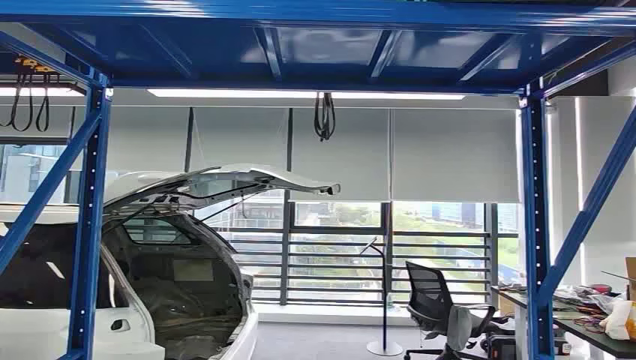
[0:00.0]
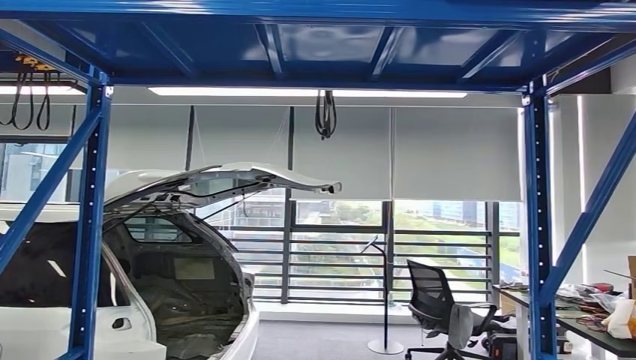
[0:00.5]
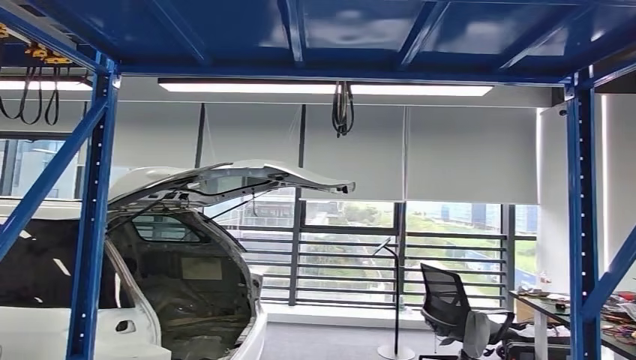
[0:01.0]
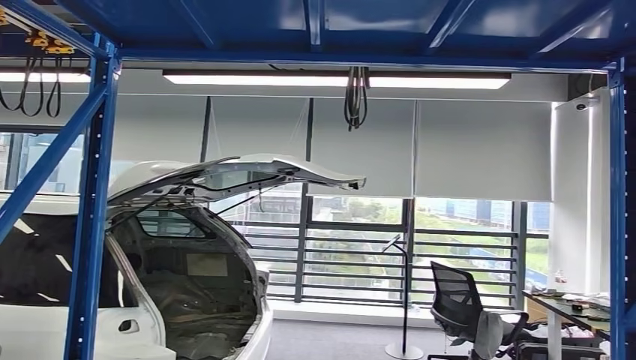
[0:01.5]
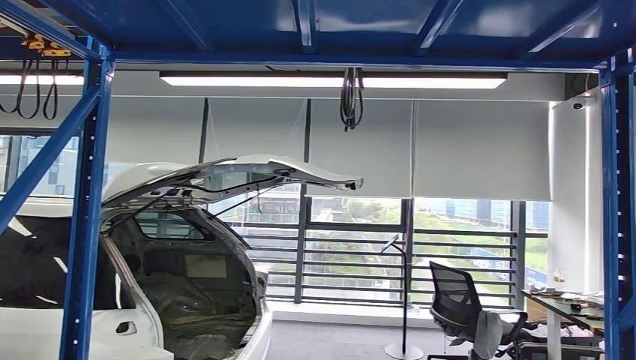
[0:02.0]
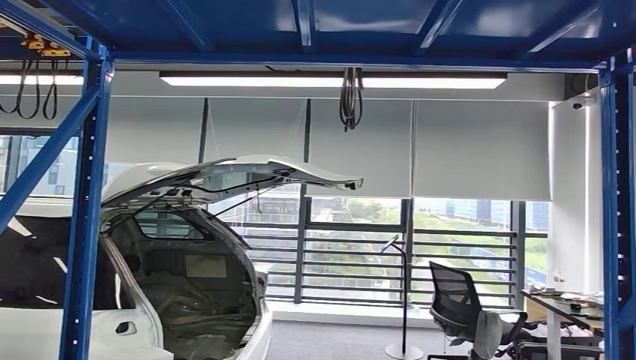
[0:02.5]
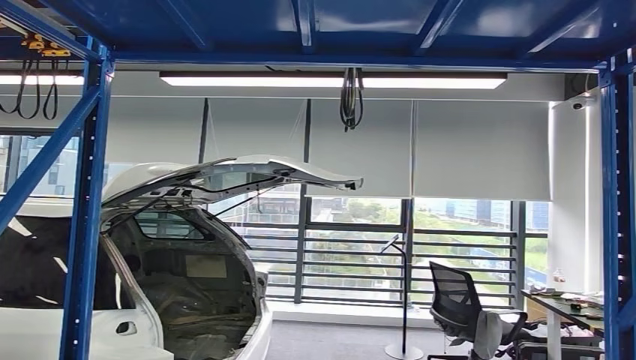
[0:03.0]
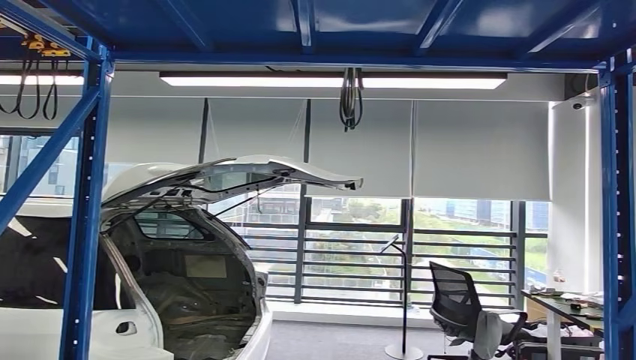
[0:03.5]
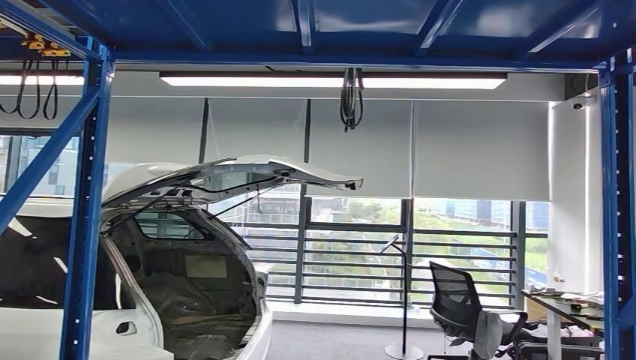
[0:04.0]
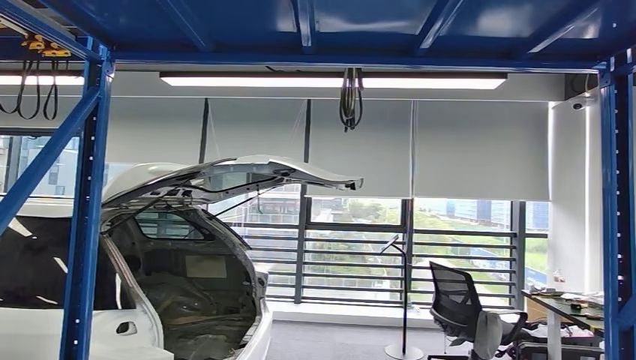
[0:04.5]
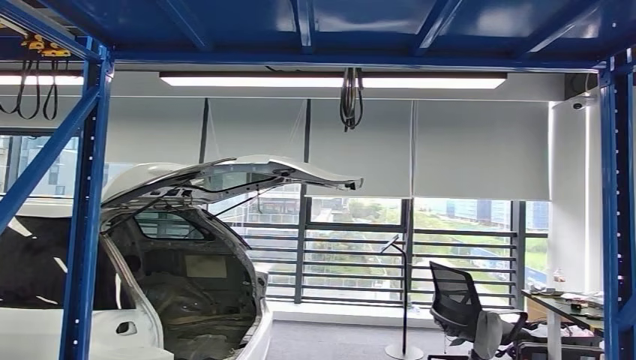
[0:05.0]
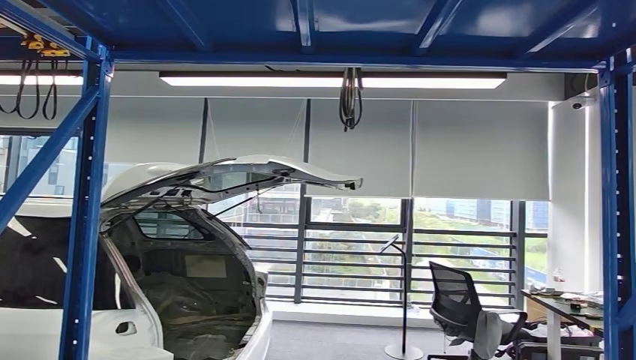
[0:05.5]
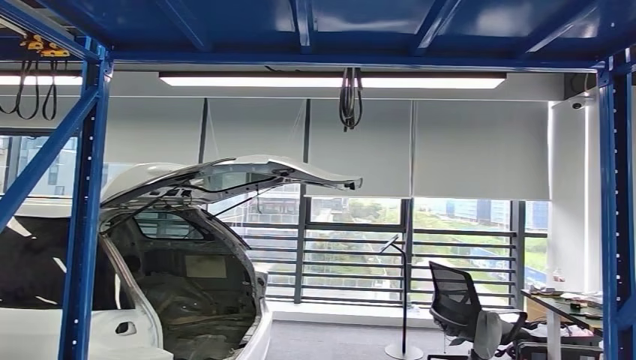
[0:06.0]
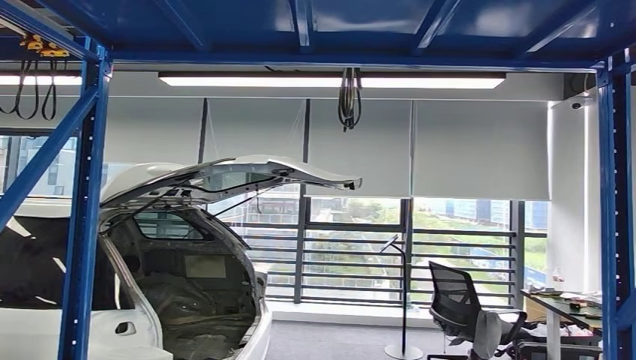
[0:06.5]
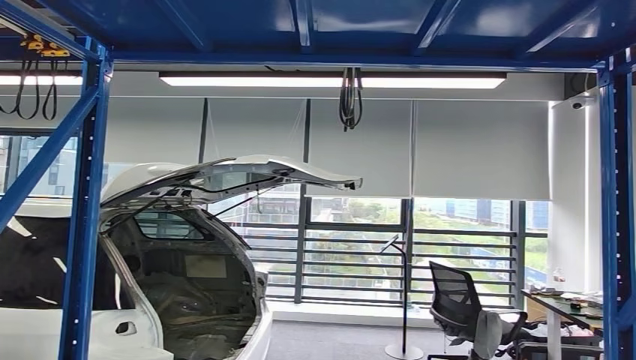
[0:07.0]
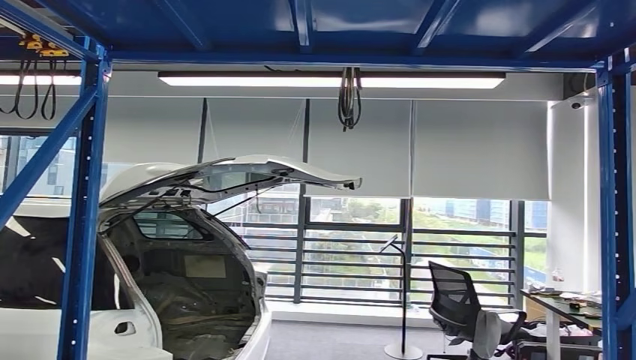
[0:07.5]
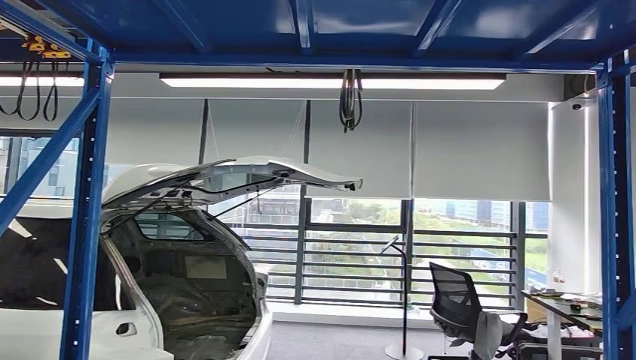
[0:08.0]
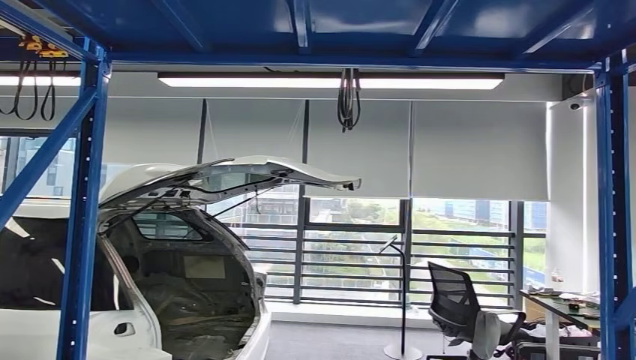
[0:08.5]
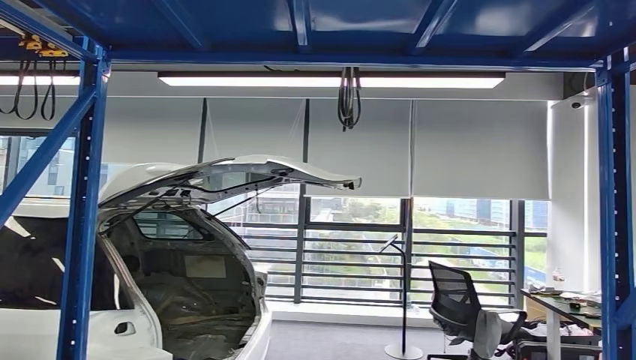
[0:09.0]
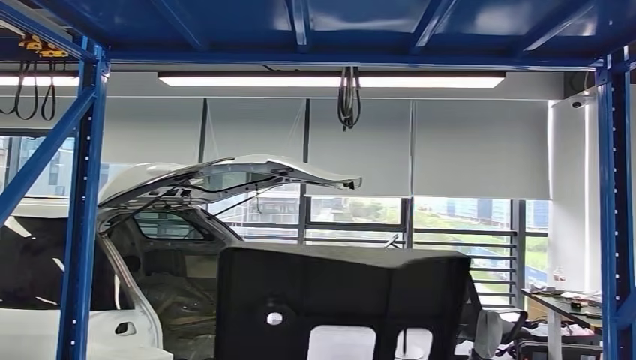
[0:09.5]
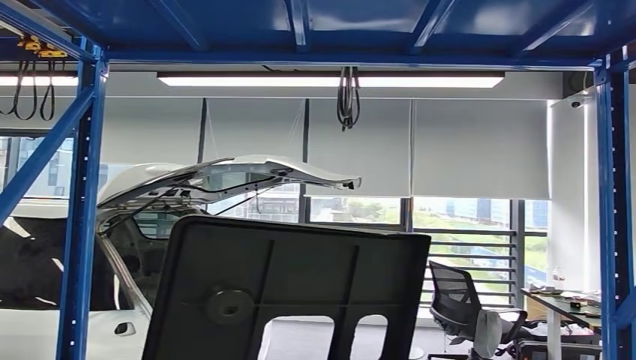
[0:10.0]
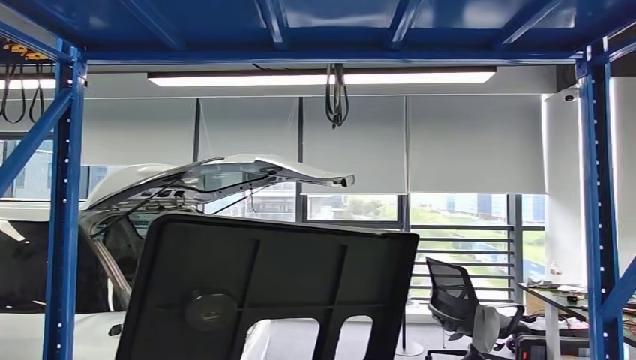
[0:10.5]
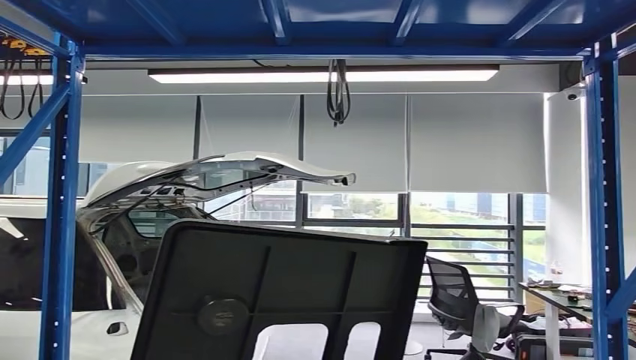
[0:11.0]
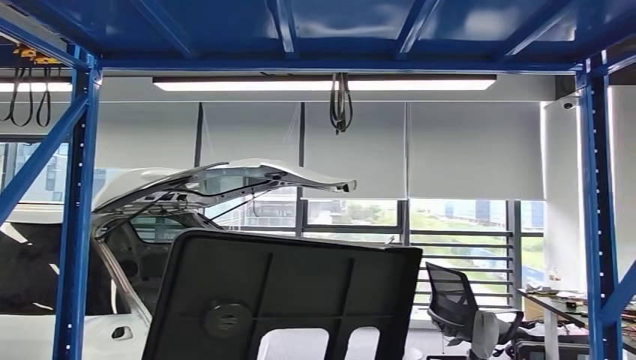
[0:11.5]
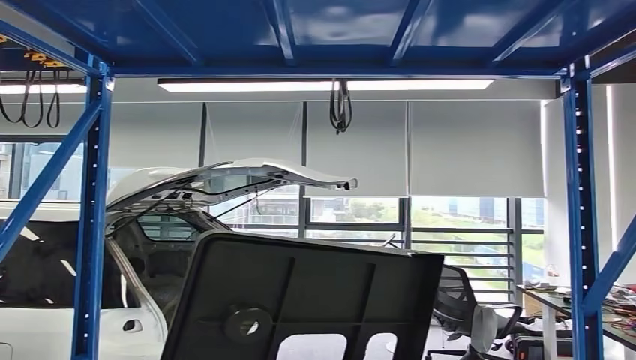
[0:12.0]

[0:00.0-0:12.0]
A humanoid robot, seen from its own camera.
Step, 0:00.0 to 0:08.0: Take small components from the rack.
0:04.0 to 0:06.0: The right hand travels forward by some 5 cm.
0:06.0 to 0:08.0: There are only small adjustments of the hands.

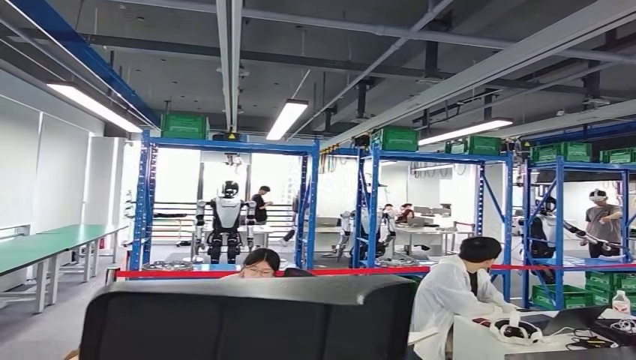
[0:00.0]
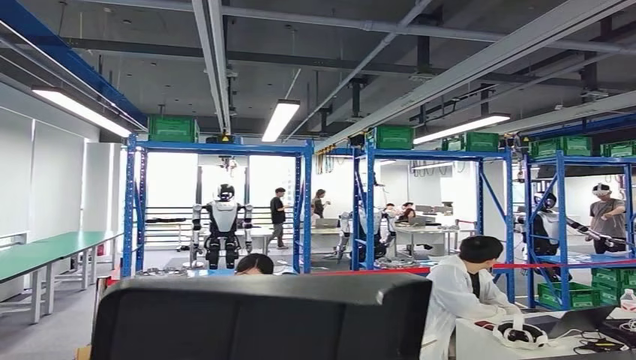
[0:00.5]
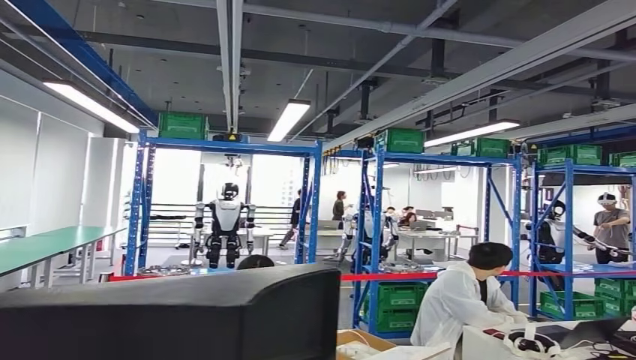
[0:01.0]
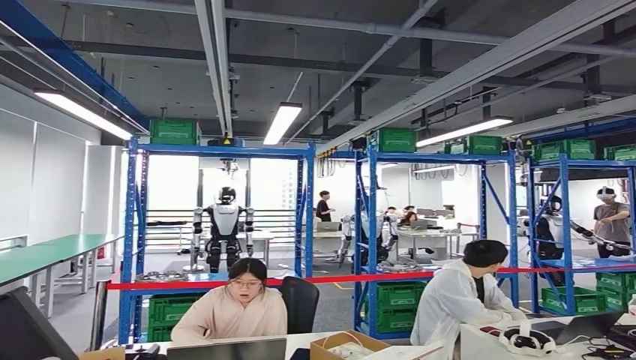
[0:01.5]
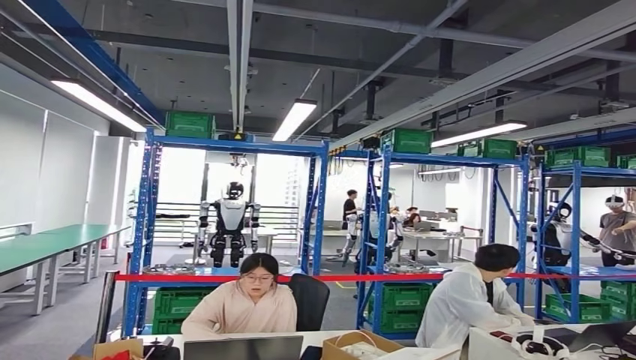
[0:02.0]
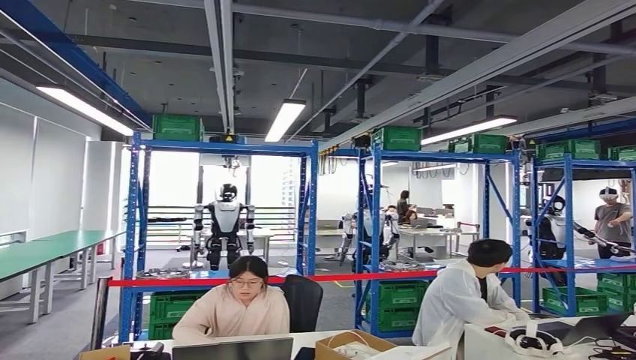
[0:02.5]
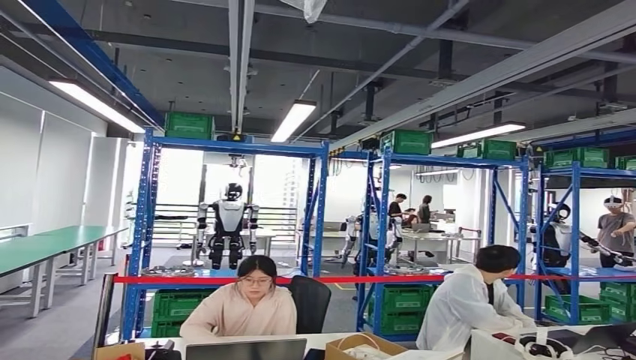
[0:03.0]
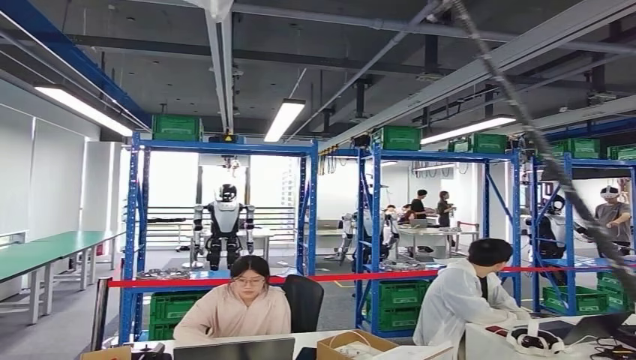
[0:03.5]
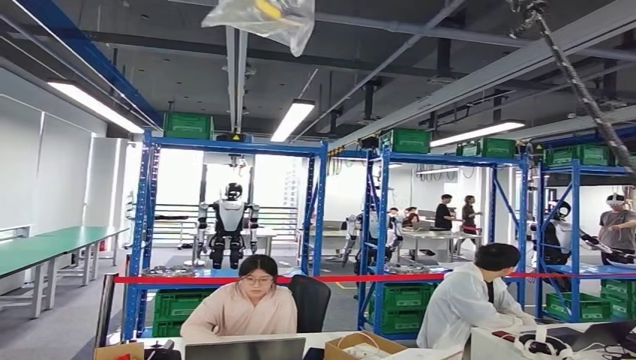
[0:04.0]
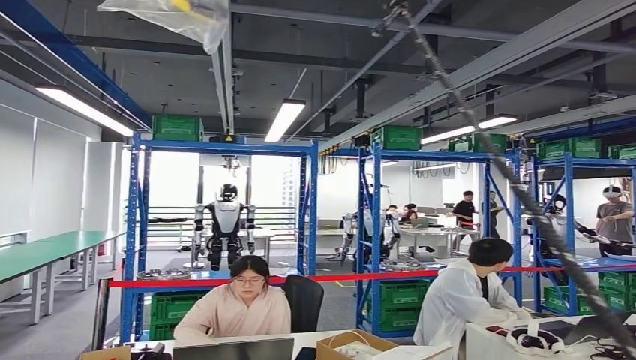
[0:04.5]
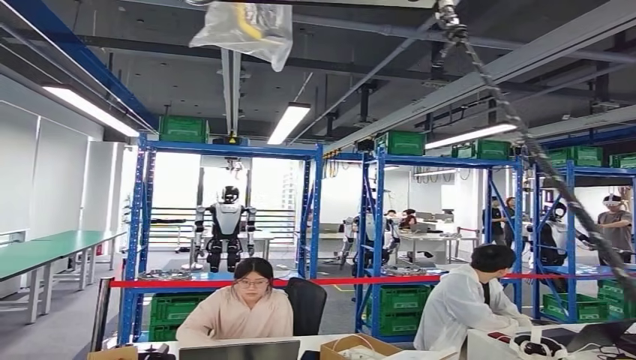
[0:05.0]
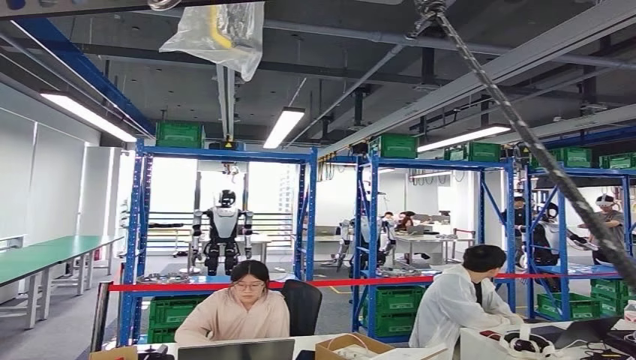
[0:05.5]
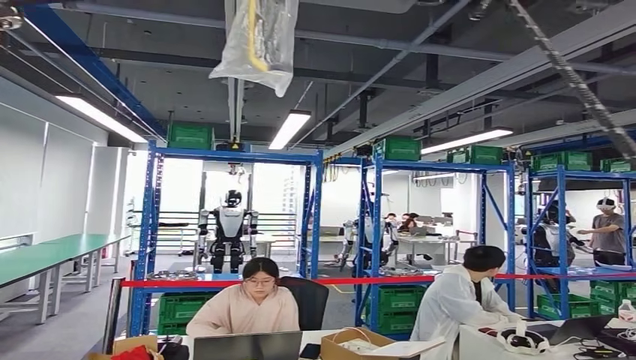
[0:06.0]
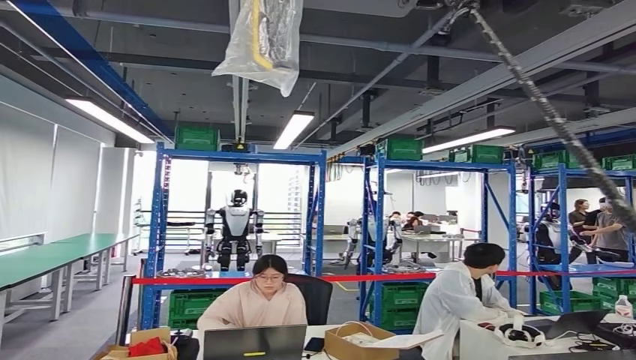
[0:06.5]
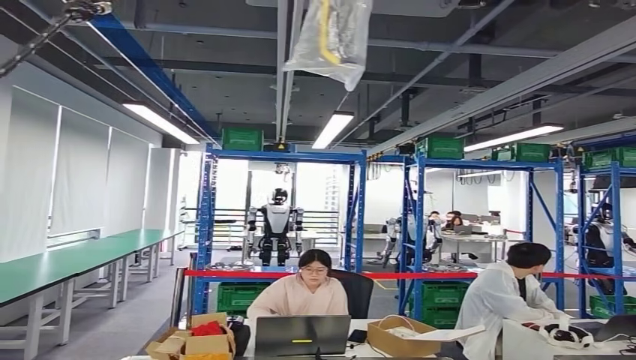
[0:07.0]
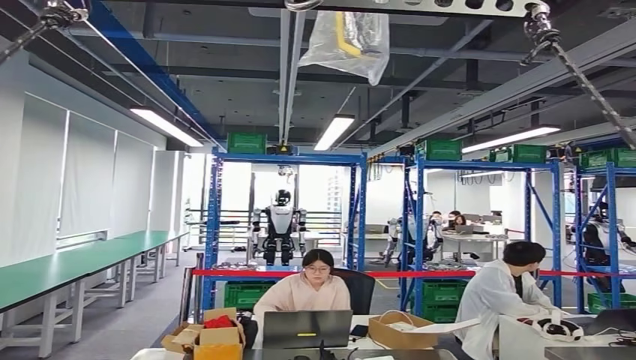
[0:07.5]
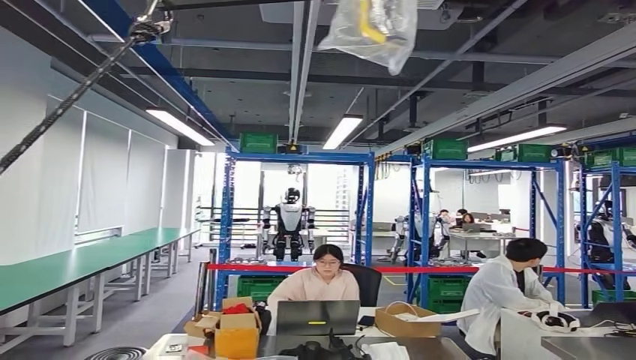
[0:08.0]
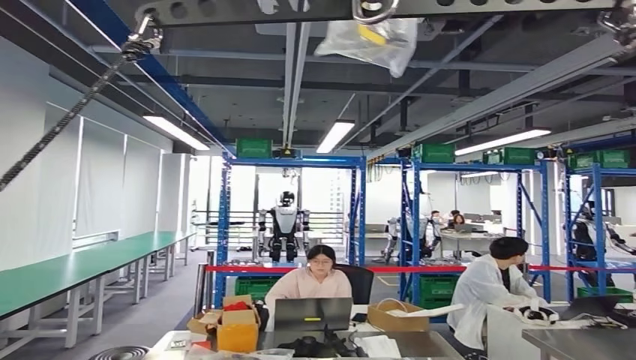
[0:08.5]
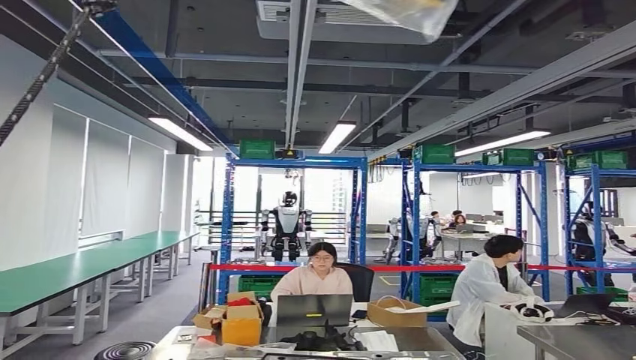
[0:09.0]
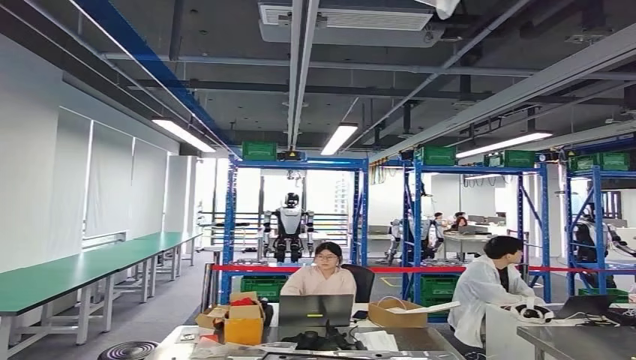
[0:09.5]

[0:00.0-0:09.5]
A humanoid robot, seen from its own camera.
Step, 0:00.5 to 0:04.5: Insert the small parts into the corresponding holes on the workbench.
Step, 0:05.0 to 0:09.5: Move to the initial position of the workbench.
0:02.0 to 0:04.0: The right hand shifts approximately 15 cm downward and to the right.
